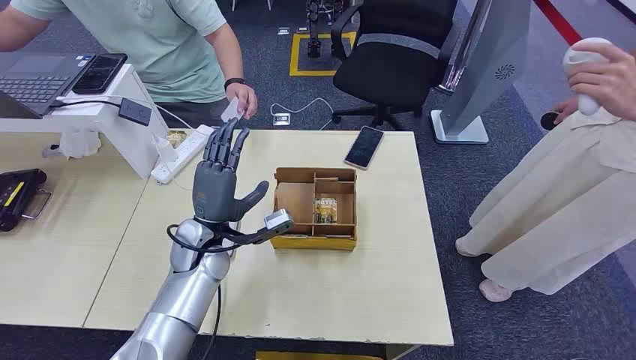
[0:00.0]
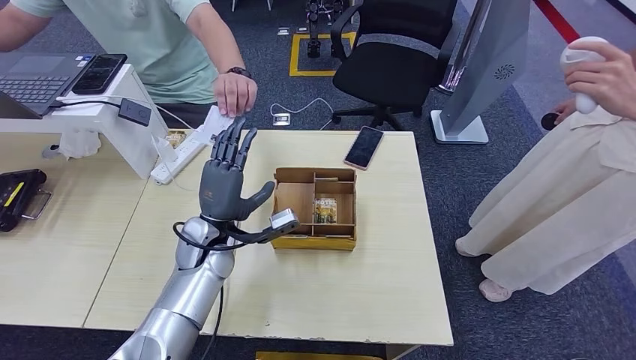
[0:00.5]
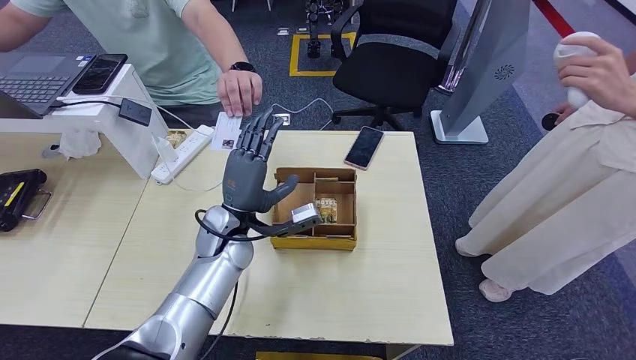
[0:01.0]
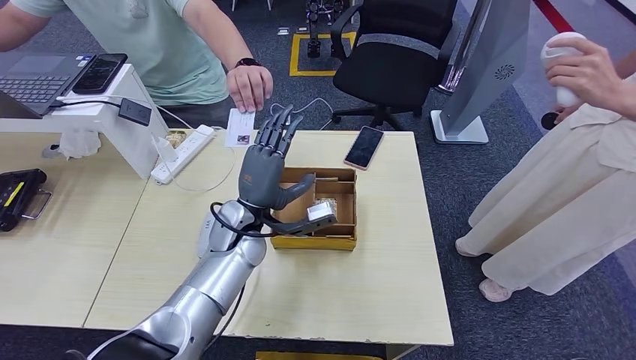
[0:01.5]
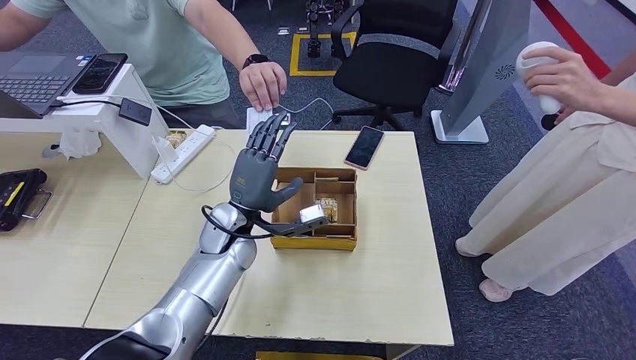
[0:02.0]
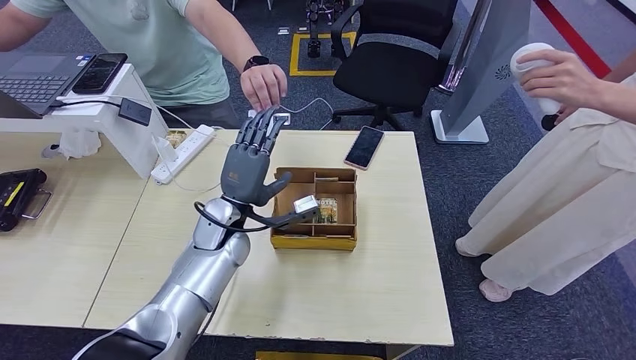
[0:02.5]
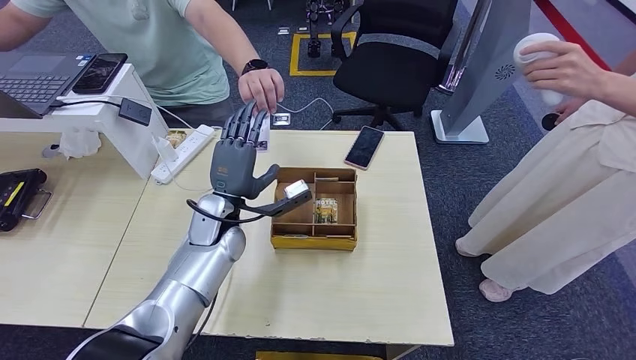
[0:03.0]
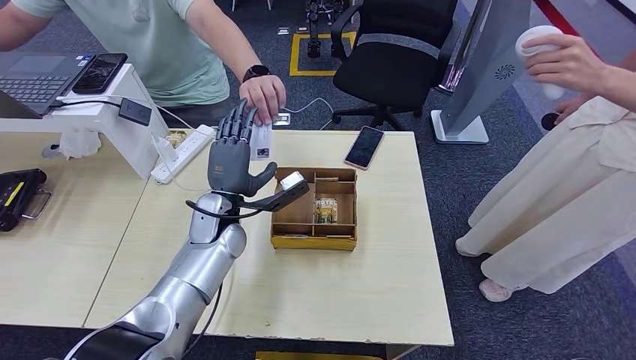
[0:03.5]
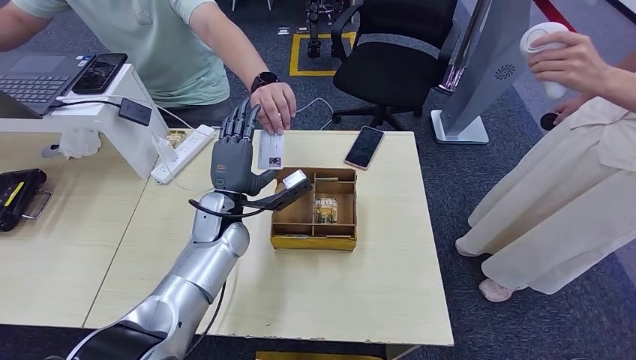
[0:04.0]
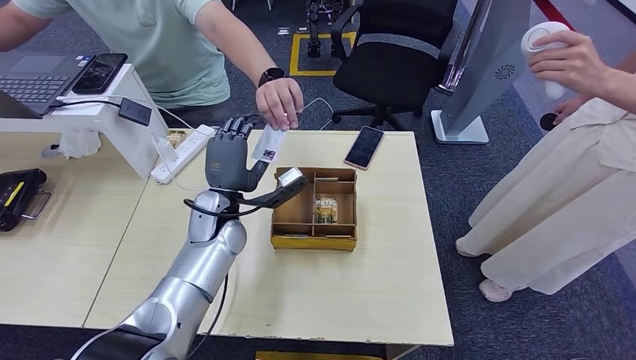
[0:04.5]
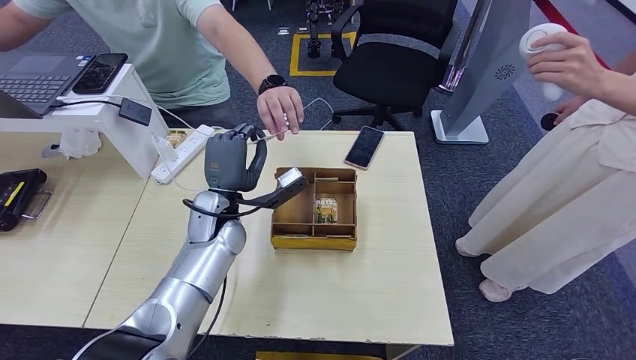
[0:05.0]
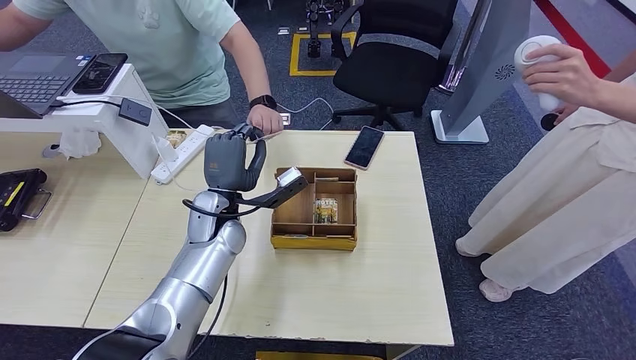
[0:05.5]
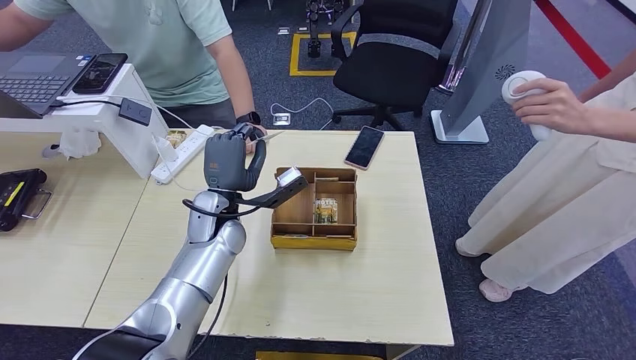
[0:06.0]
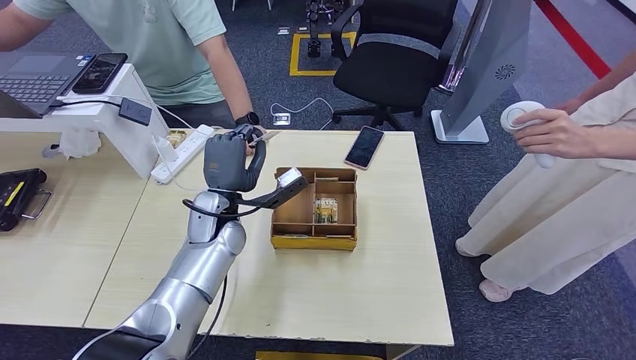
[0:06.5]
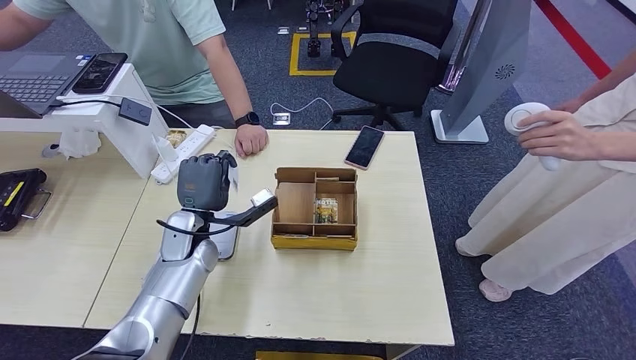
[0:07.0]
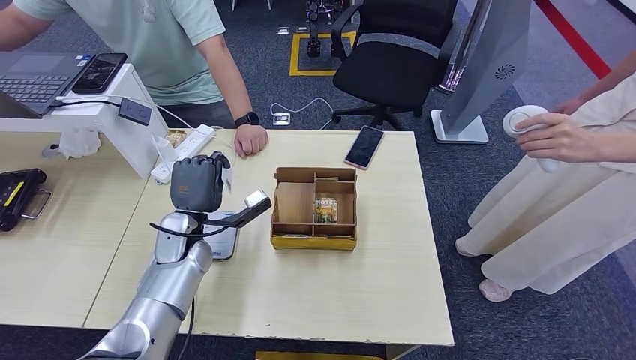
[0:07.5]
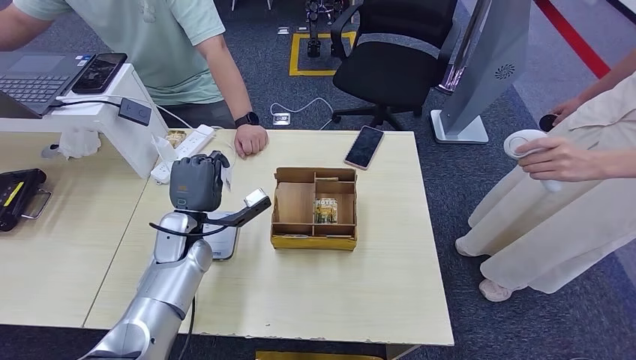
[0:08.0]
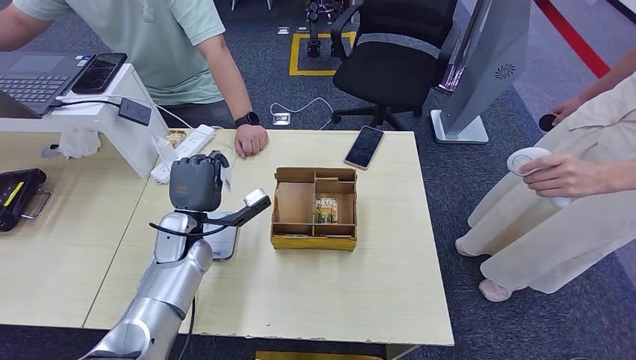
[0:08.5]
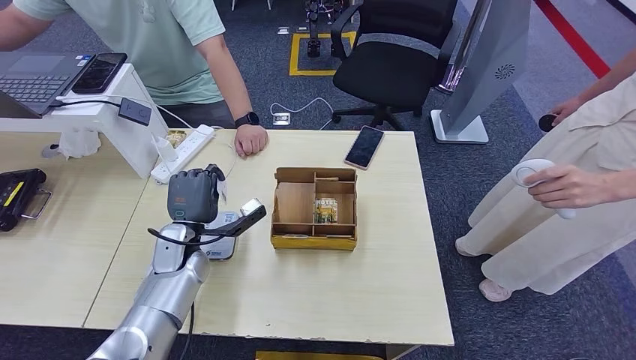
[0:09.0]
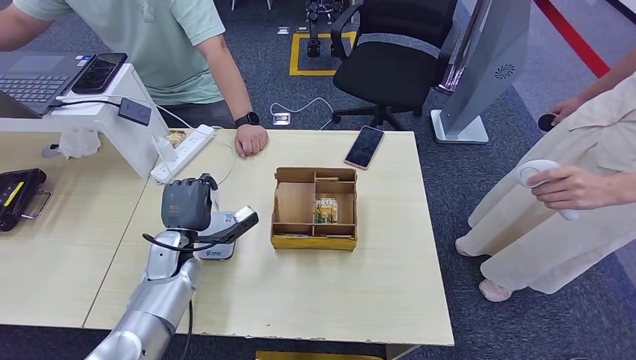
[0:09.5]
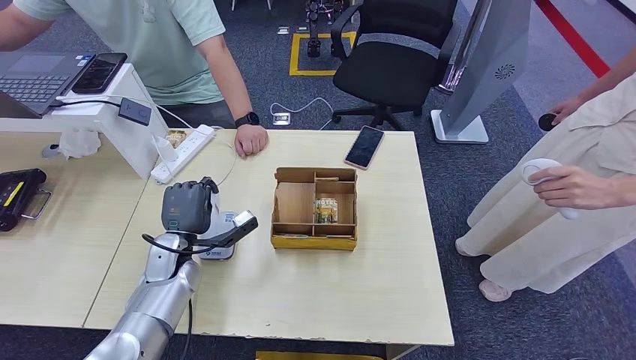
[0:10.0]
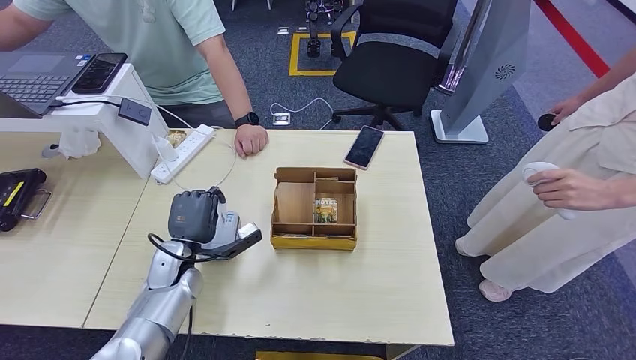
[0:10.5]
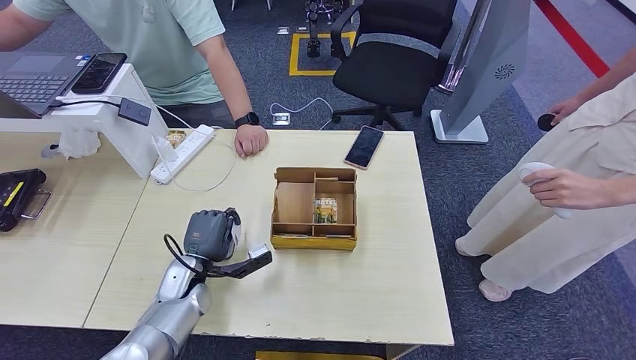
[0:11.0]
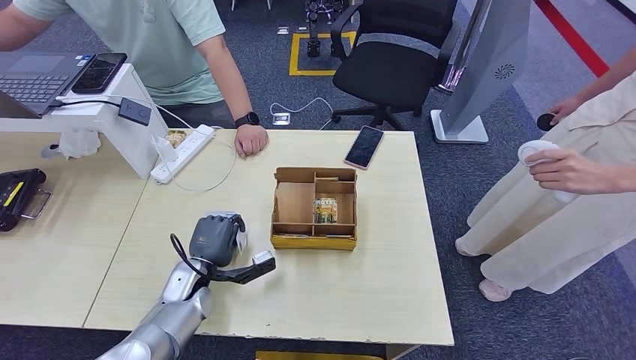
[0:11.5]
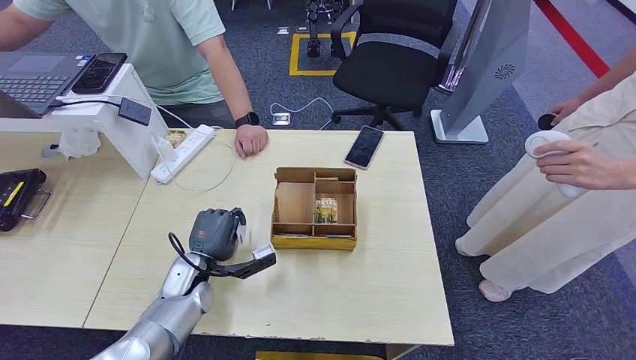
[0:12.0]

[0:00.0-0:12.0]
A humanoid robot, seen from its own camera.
Step, 0:00.0 to 0:05.5: Take the ID card from the person's hand.
0:02.0 to 0:04.0: The hands stay close to where they were, moving slightly.
0:04.0 to 0:06.0: Both hands stay put.
0:06.0 to 0:08.0: The left hand moves to the left, approximately 5 cm.
0:08.0 to 0:10.0: The left hand shifts by about 5 cm.
0:10.0 to 0:12.0: The left hand moves some 5 cm.

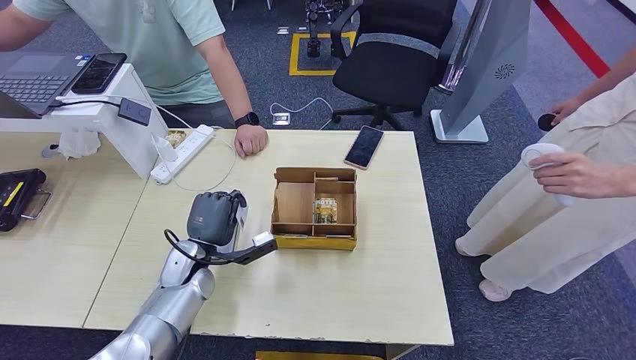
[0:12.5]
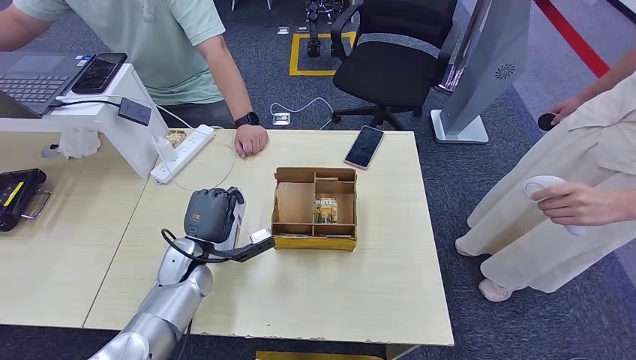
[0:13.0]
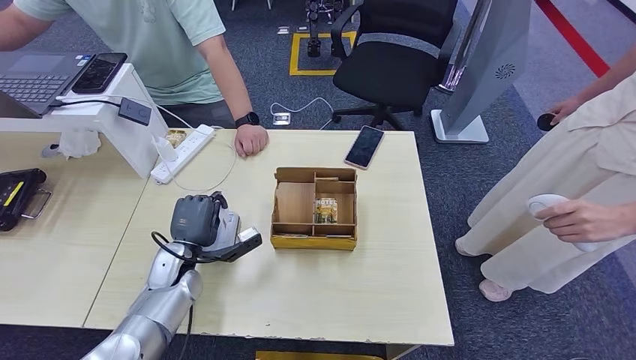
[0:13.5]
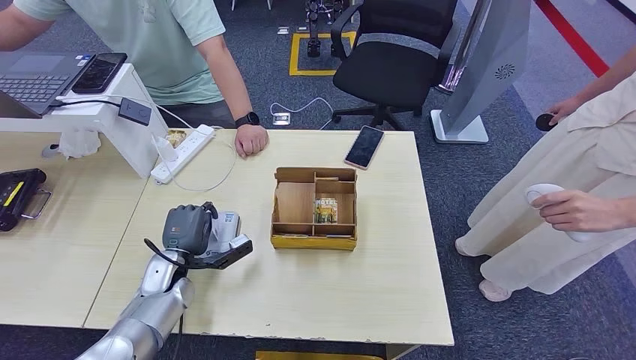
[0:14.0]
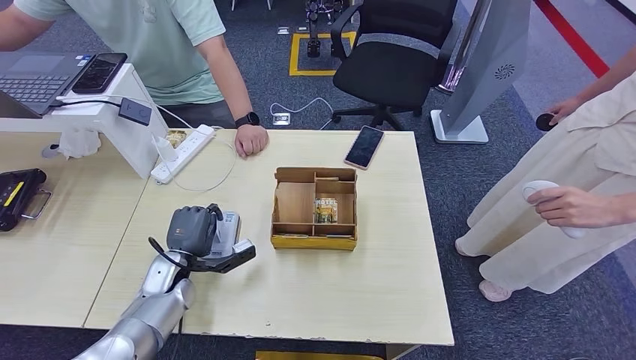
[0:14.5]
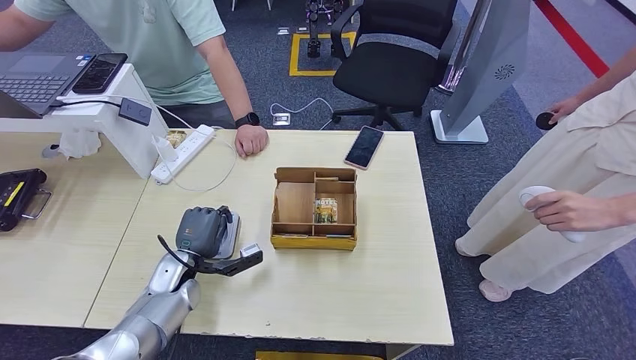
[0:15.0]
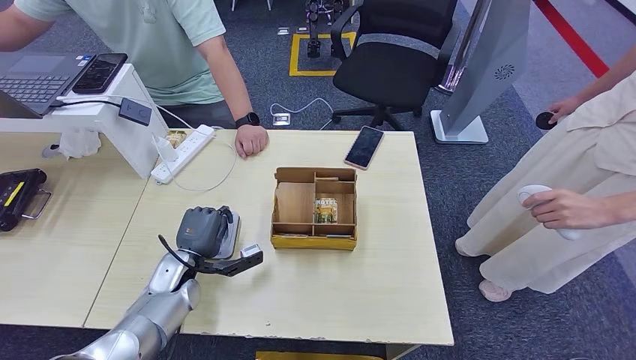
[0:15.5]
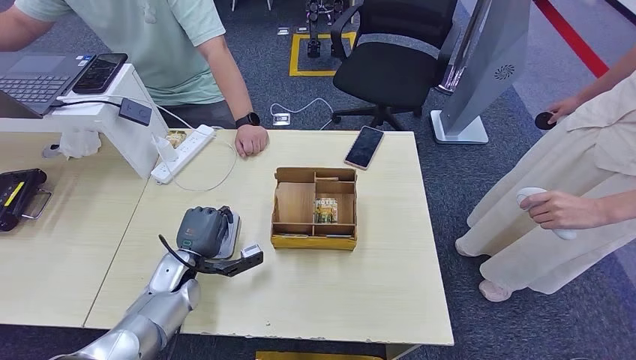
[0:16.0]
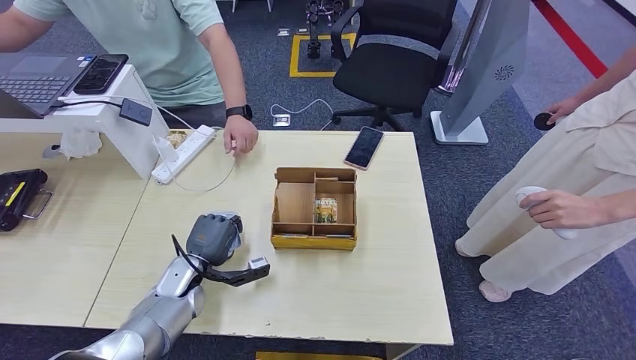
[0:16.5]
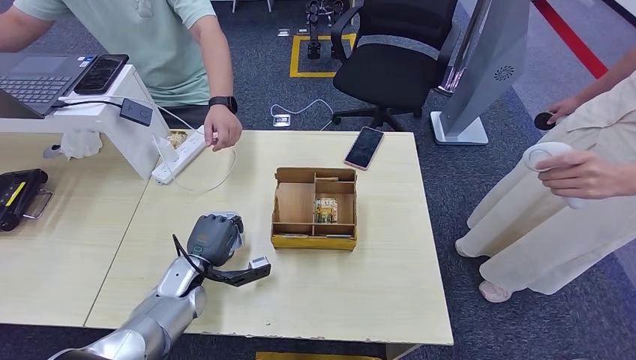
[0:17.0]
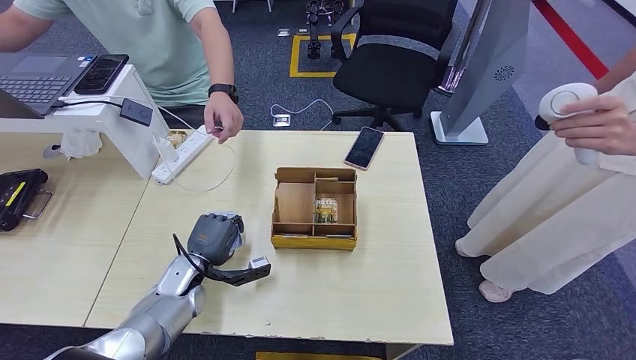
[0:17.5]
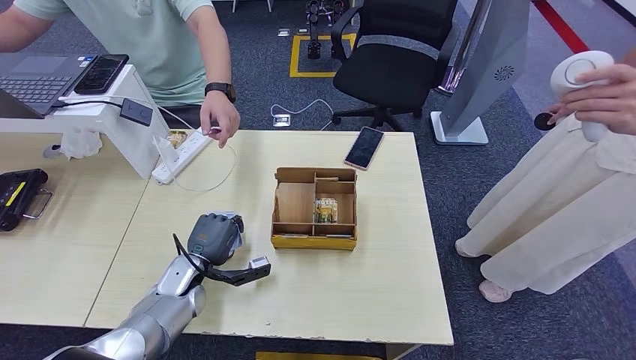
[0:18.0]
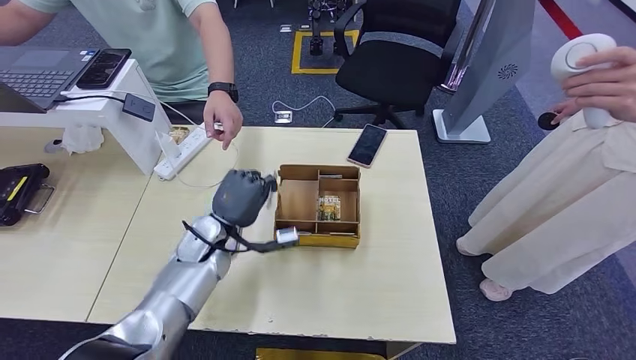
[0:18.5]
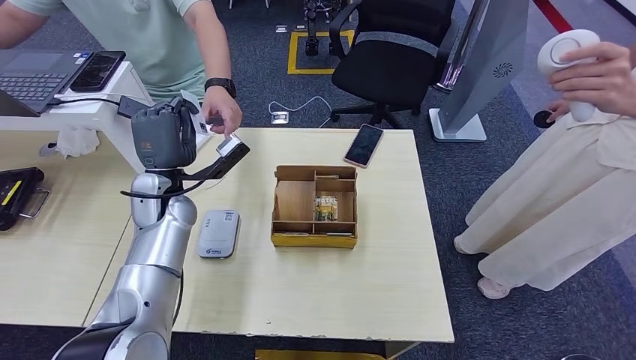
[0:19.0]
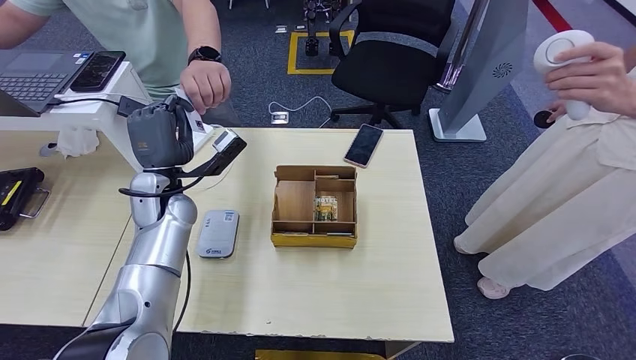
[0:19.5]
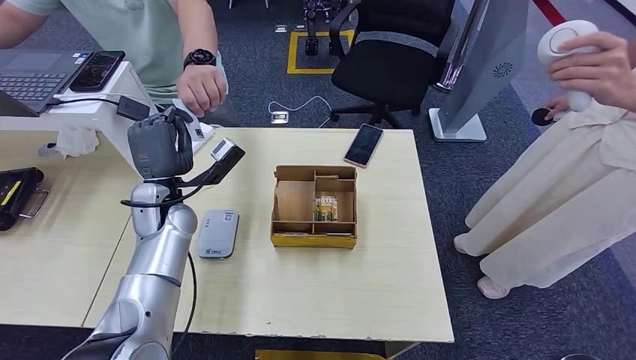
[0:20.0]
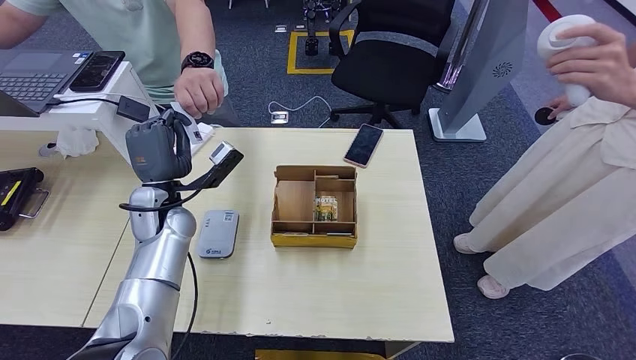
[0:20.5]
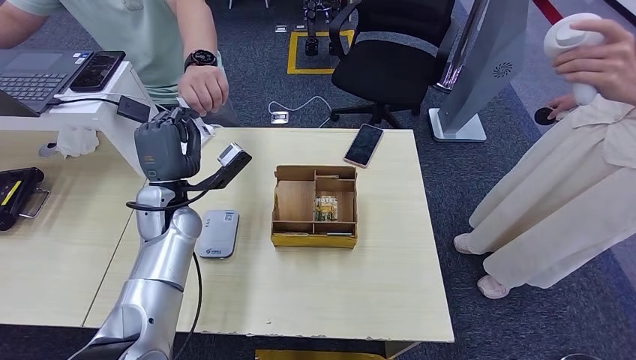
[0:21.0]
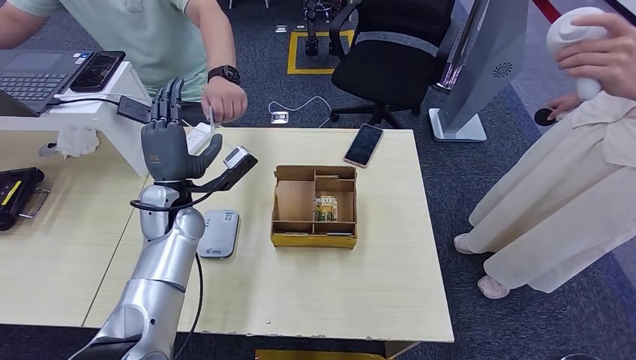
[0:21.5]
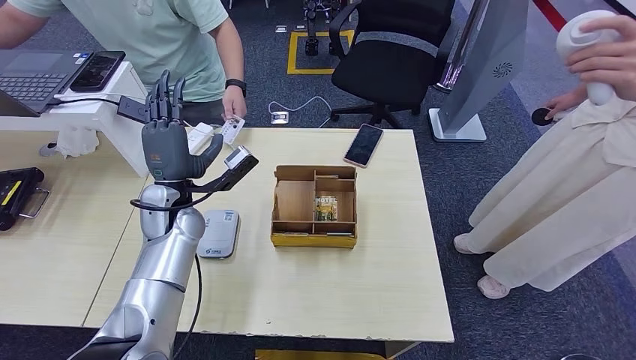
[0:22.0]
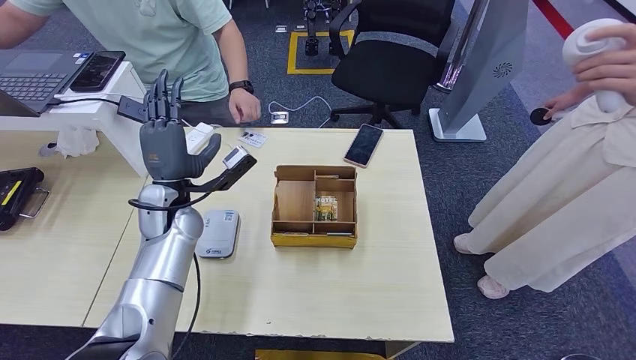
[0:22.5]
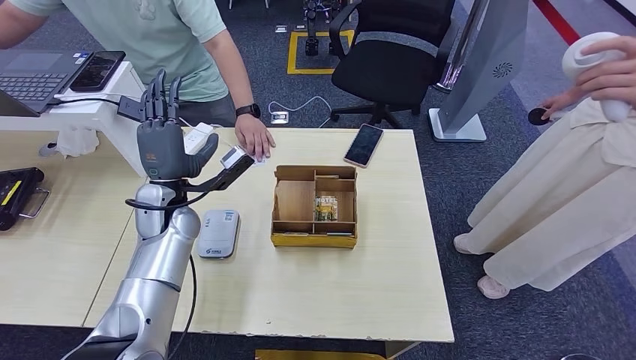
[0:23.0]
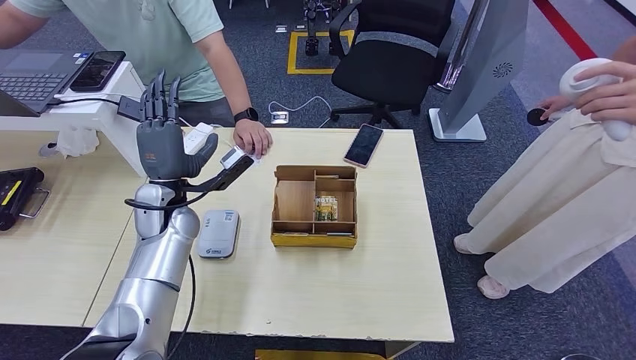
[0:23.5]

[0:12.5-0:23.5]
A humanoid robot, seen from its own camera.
Step, 0:12.5 to 0:18.0: Place the ID card on the card reader.
Step, 0:19.0 to 0:21.0: Hand the ID card to the person.
0:12.5 to 0:14.5: The left hand changes place by about 5 cm.
0:14.5 to 0:18.0: There are only small adjustments of the hands.
0:20.0 to 0:21.5: There are only small adjustments of the hands.
0:21.5 to 0:23.5: Both hands stay put.
